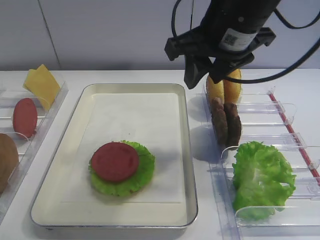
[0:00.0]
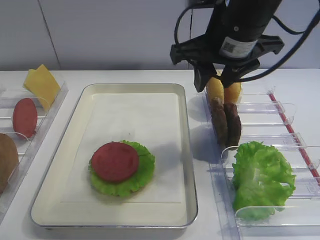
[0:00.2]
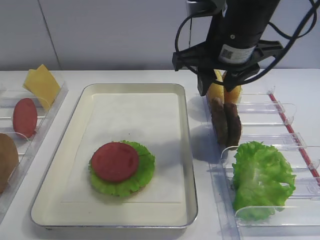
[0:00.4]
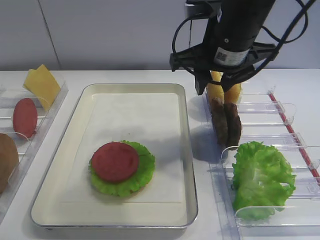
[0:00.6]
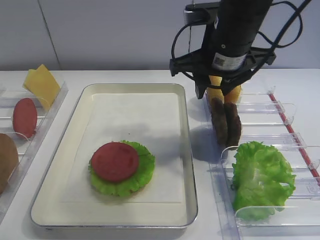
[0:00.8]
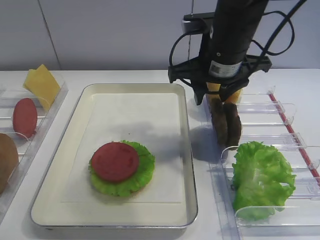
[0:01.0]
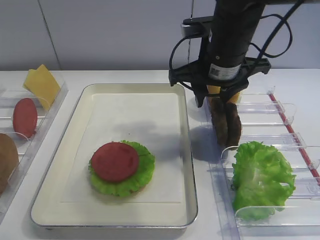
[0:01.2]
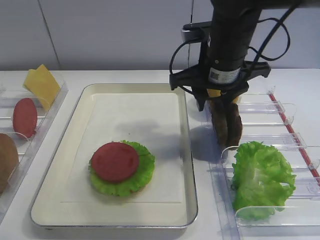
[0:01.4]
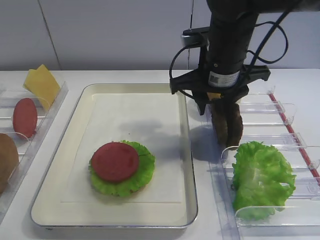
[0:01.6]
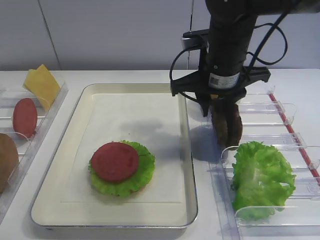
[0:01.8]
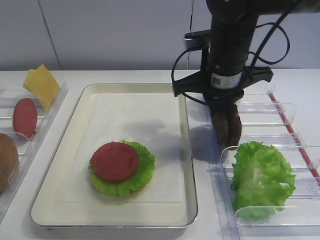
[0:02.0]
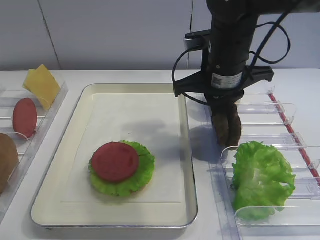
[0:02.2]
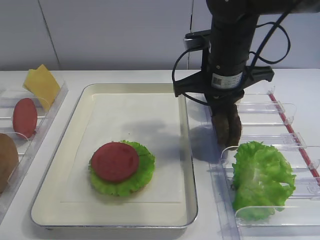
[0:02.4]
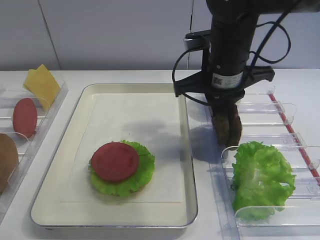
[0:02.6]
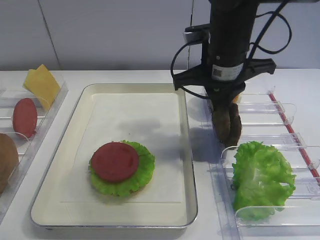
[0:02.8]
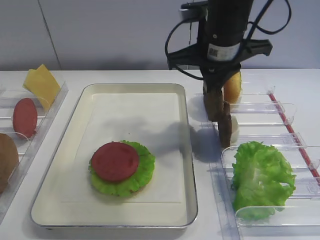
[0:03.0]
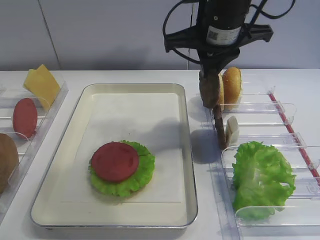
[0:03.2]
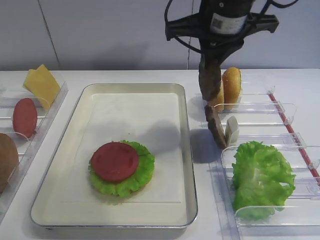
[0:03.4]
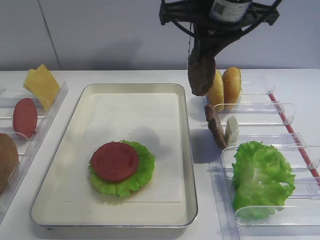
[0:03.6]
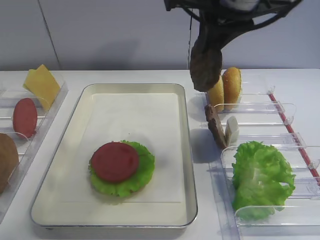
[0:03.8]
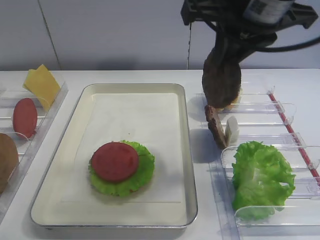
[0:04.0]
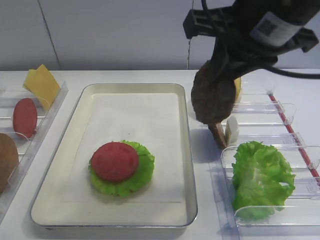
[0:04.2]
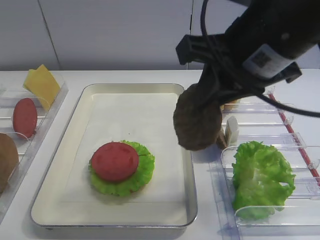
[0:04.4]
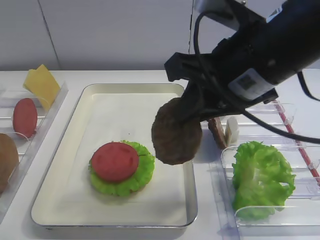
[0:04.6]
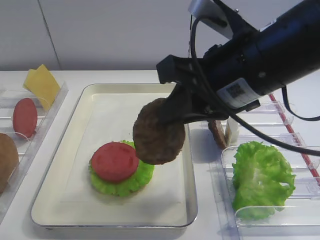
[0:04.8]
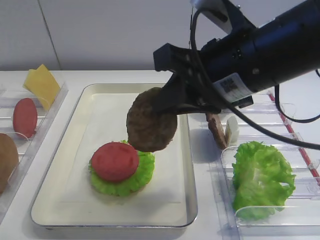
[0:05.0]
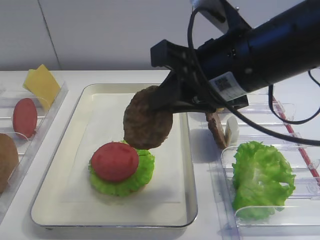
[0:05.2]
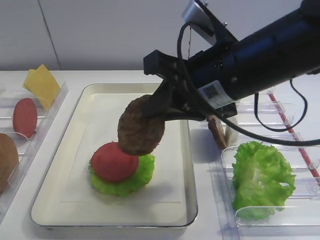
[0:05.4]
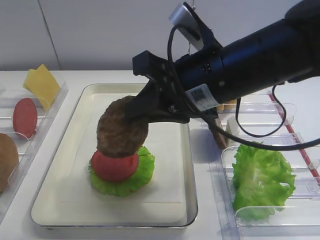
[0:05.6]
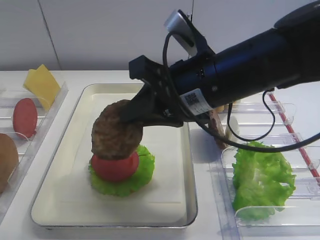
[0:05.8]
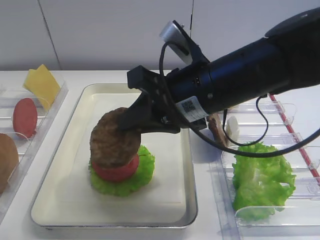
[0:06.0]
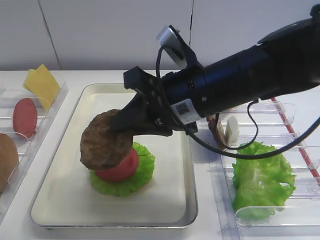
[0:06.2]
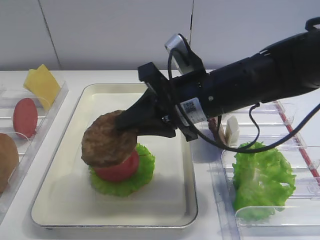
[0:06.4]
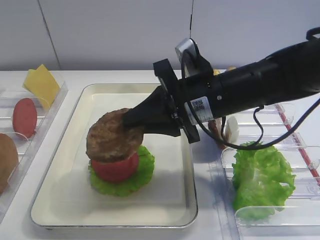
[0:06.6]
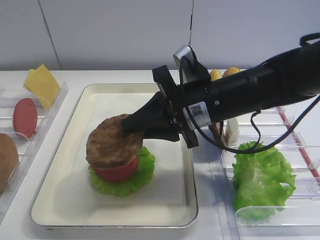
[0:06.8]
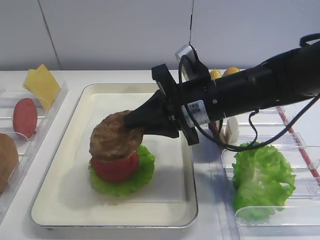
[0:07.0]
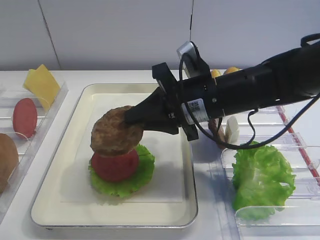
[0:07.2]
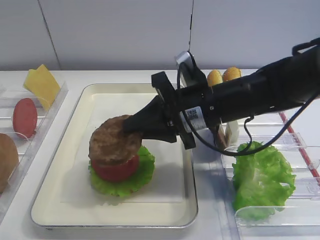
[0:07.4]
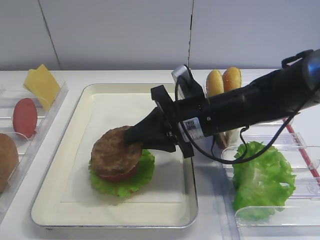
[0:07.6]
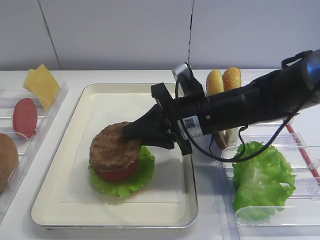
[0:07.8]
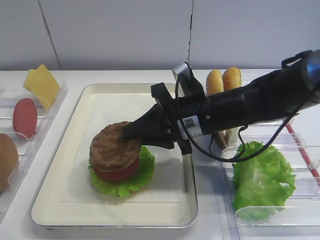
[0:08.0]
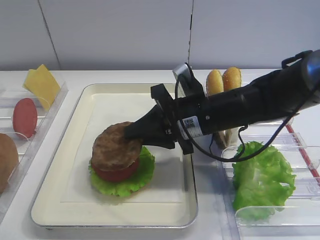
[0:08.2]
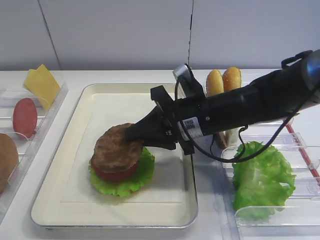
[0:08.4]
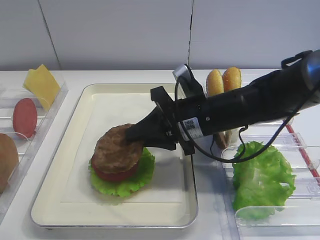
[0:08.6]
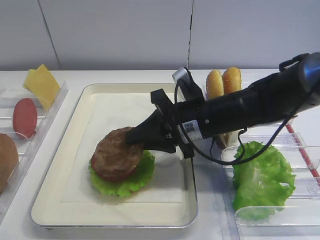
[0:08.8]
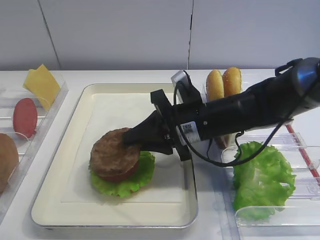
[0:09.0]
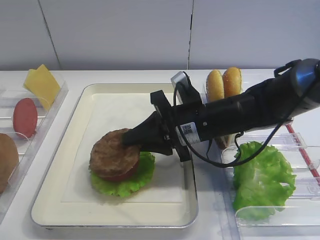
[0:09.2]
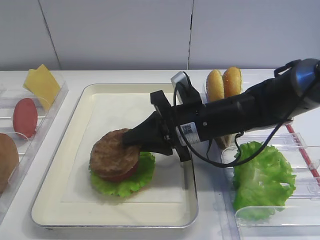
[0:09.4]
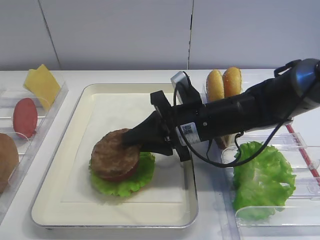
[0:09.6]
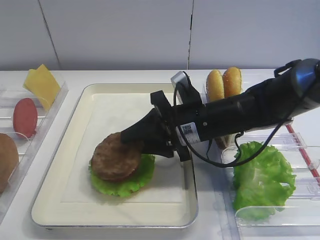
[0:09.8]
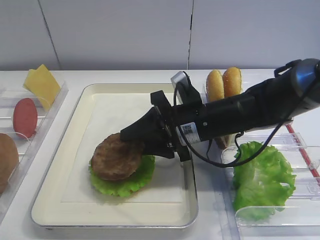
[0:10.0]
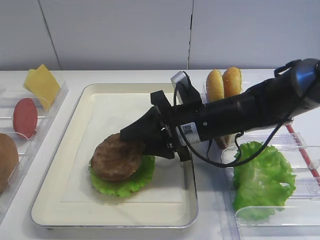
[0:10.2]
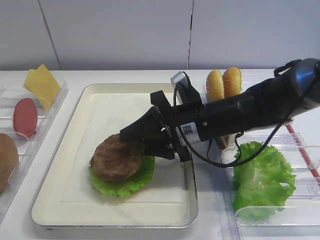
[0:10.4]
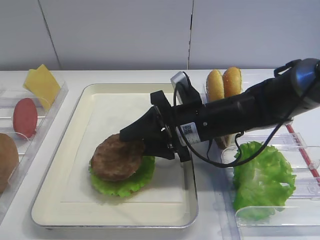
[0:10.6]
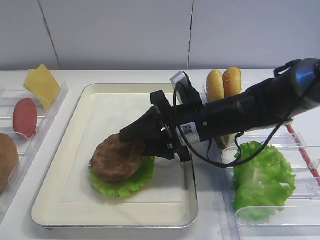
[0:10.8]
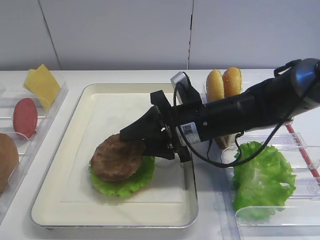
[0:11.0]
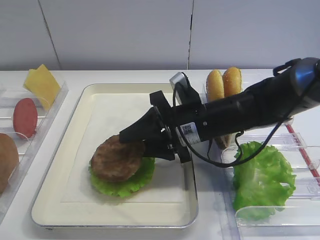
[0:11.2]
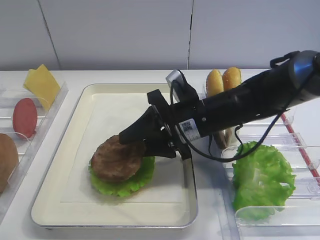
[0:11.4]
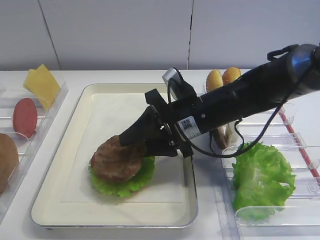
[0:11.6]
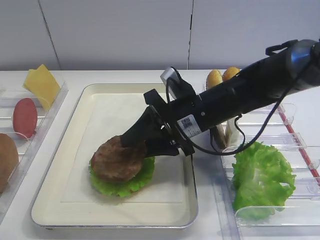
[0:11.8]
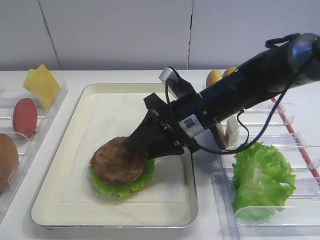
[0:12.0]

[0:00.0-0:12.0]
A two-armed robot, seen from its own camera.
Step, 0:00.0 to 0:03.4: Pick up the cutlet with the right gripper.
0:00.0 to 0:01.6: The right gripper shifts about 10 cm downward.
0:01.6 to 0:03.0: The right gripper closes.
0:03.0 to 0:04.4: The right gripper is displaced backward by about 15 cm.
0:04.4 to 0:06.0: The right gripper goes approximately 10 cm downward and to the left.
0:06.0 to 0:07.6: The right gripper shifts approximately 10 cm downward.
0:07.6 to 0:09.0: The grippers make only small movements.
0:09.0 to 0:10.4: The right gripper opens its fingers.
0:10.4 to 0:12.0: There are only small adjustments of the grippers.

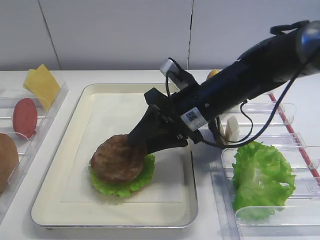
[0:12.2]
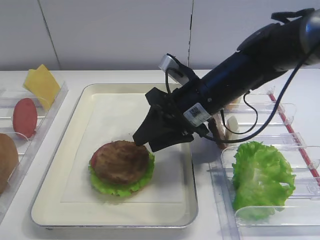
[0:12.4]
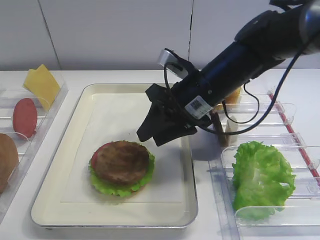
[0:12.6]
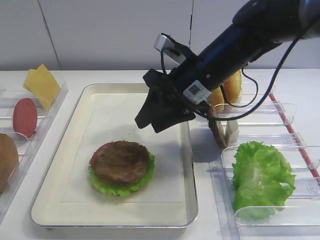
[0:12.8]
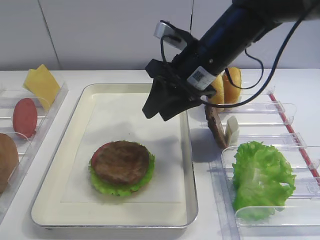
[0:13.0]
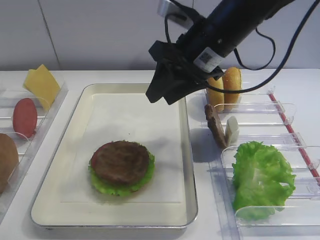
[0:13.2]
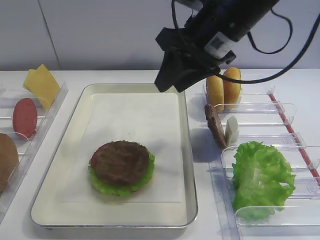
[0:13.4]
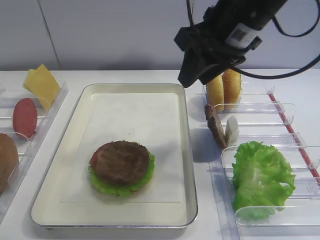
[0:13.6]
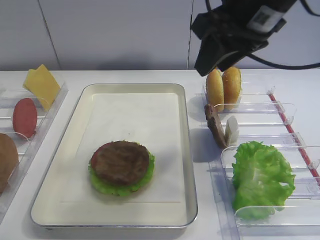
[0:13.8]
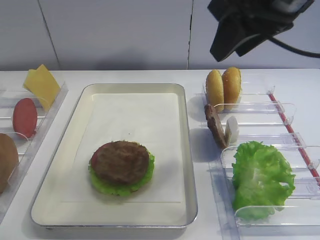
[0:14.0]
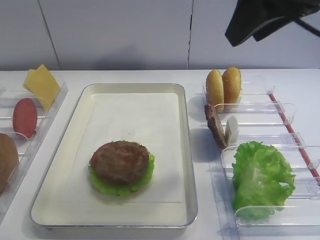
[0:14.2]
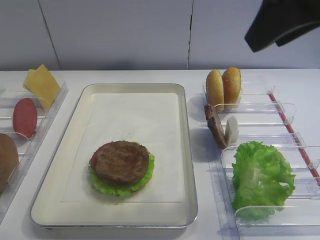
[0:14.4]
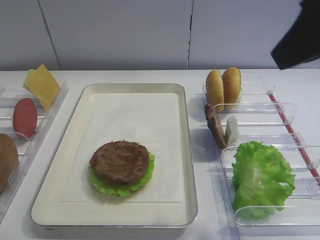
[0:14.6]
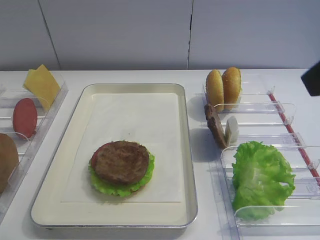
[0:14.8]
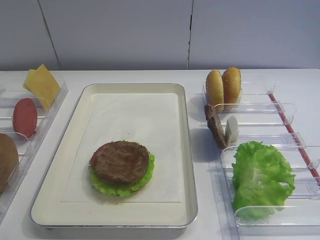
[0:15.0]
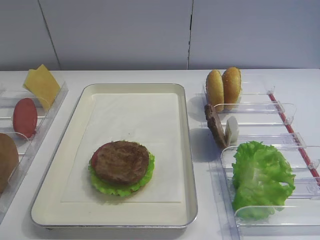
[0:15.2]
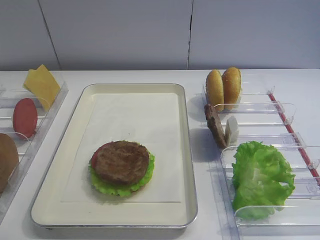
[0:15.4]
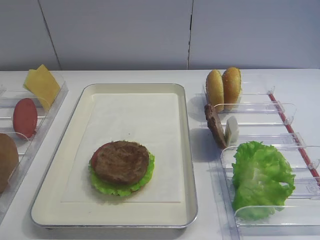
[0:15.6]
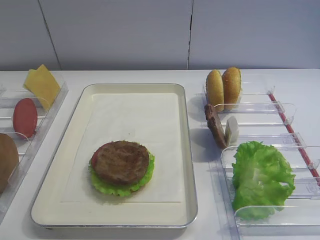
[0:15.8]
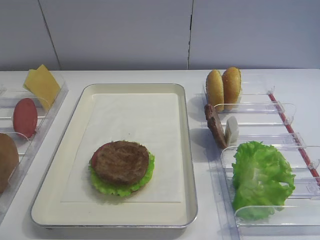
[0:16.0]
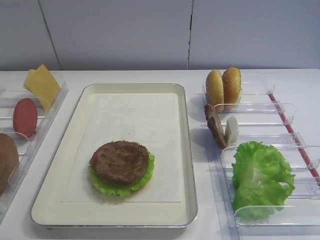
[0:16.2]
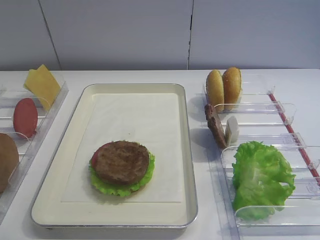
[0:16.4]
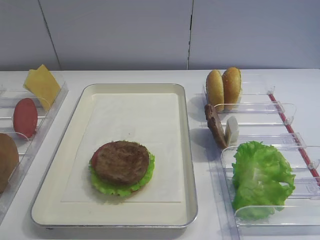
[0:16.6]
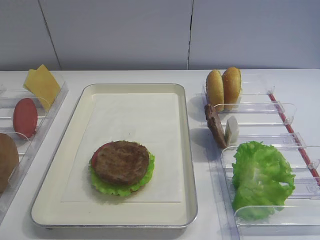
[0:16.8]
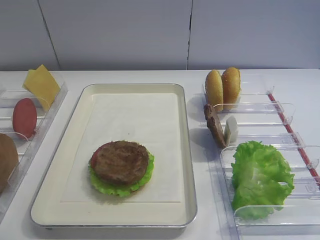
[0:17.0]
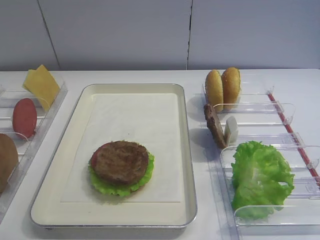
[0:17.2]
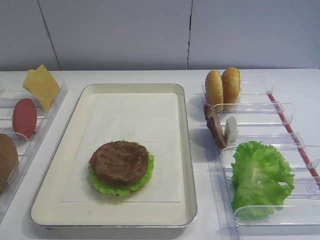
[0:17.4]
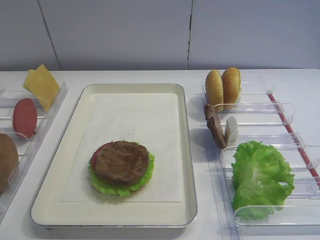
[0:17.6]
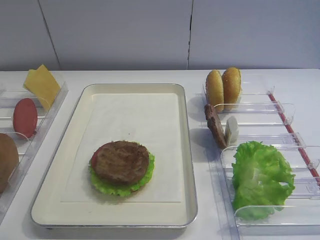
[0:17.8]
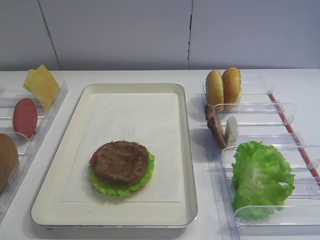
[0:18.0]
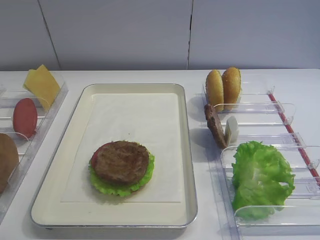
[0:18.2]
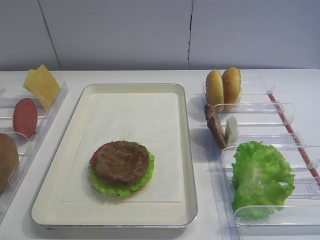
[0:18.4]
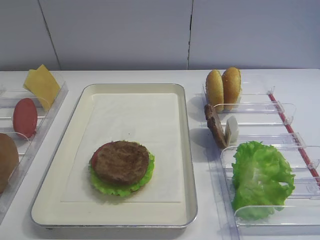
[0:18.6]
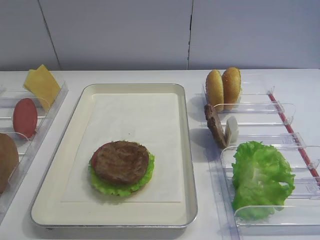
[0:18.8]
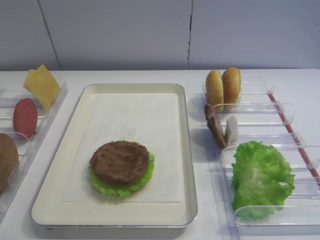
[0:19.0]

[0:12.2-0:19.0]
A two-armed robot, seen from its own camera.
0:12.2 to 0:13.6: The right gripper is displaced upward by approximately 15 cm.
0:13.6 to 0:15.0: The right gripper heads backward and to the right, covering some 25 cm.

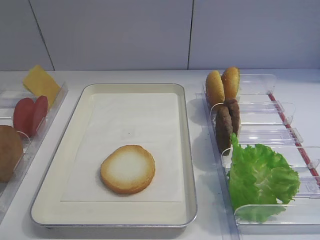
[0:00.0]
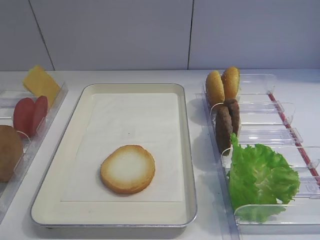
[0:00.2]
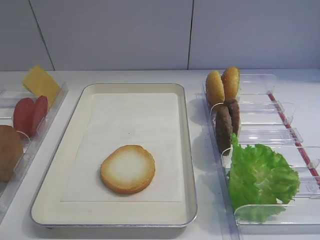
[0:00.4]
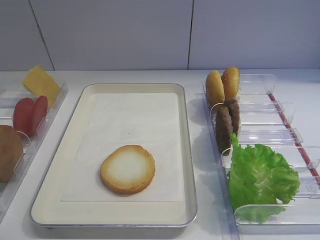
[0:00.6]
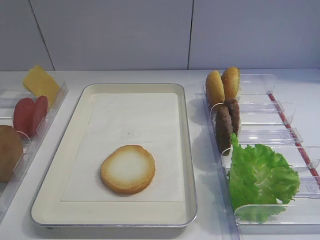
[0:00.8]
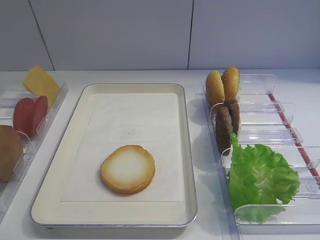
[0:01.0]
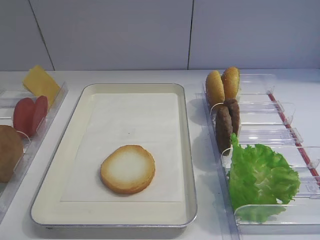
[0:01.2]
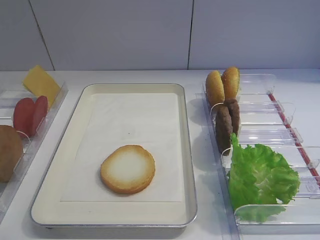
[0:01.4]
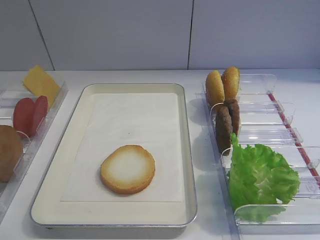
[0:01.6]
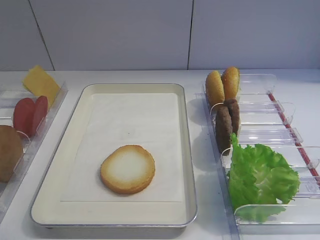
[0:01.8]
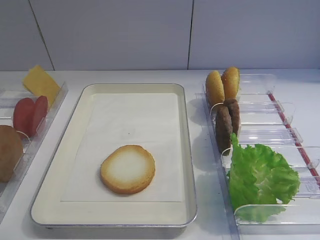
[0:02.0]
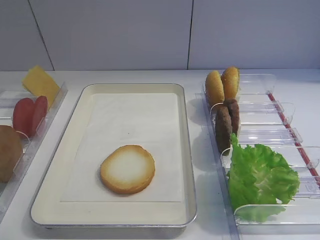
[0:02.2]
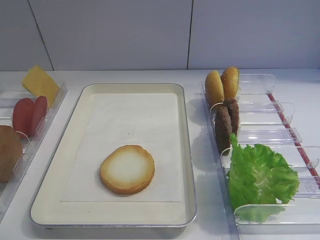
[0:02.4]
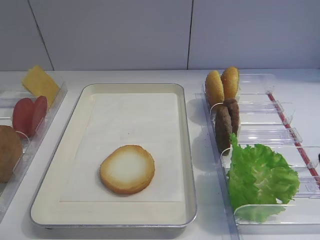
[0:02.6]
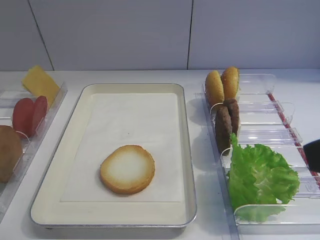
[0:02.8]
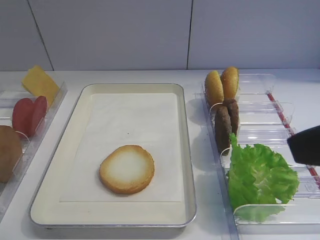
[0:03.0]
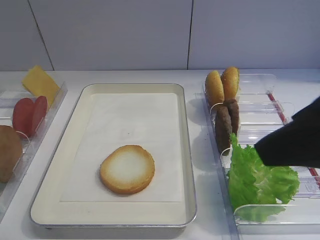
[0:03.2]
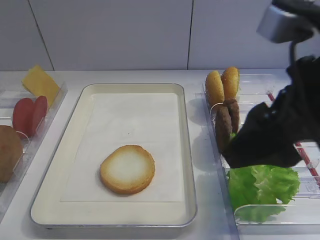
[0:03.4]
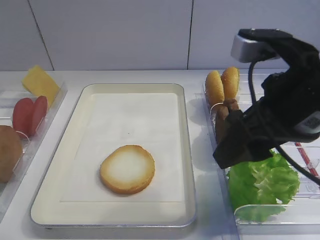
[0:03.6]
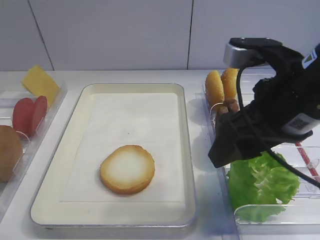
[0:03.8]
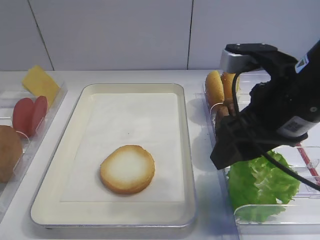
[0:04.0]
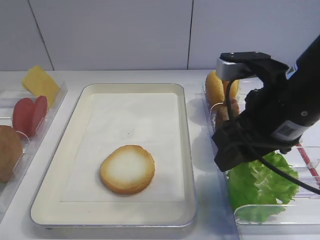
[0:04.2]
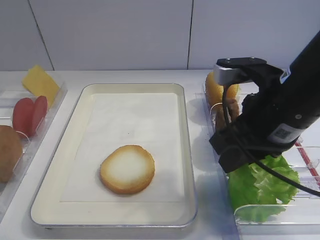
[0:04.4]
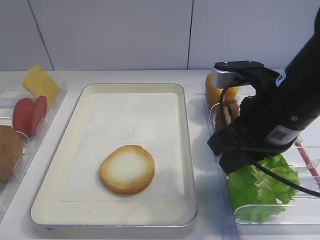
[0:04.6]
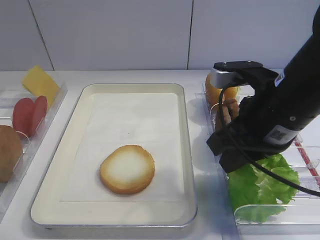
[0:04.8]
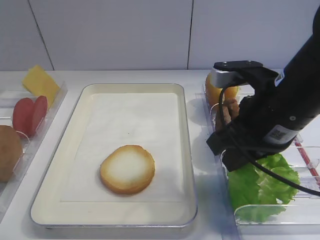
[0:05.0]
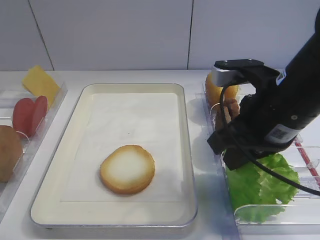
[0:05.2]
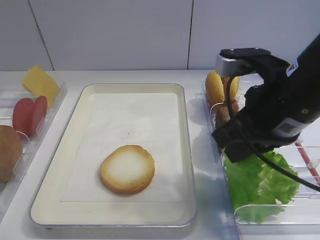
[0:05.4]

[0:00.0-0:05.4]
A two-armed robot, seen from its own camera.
0:01.4 to 0:02.8: The right gripper heads forward, upward and to the left, covering approximately 10 cm.
0:02.8 to 0:04.0: The right gripper shifts roughly 15 cm forward, to the left and downward.
0:04.0 to 0:05.4: The right gripper closes its fingers.
